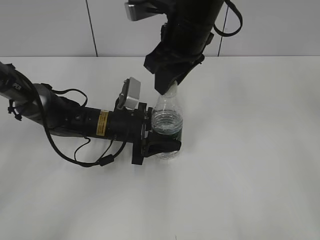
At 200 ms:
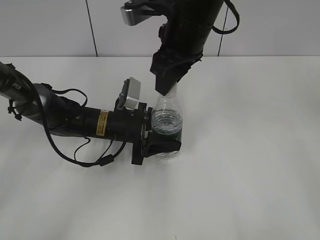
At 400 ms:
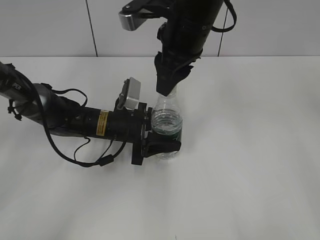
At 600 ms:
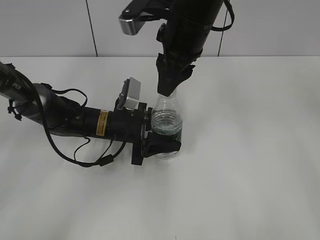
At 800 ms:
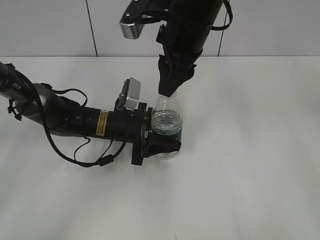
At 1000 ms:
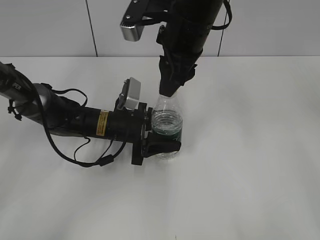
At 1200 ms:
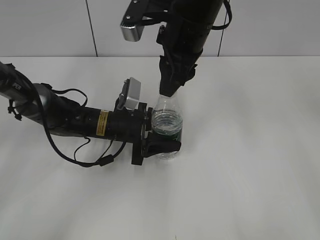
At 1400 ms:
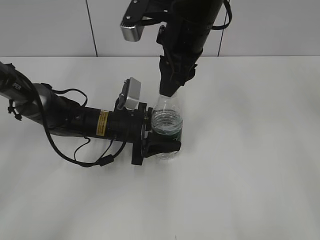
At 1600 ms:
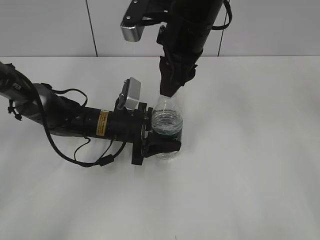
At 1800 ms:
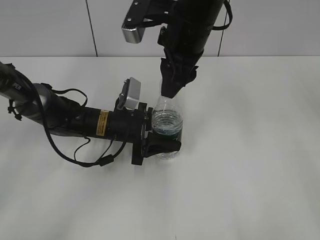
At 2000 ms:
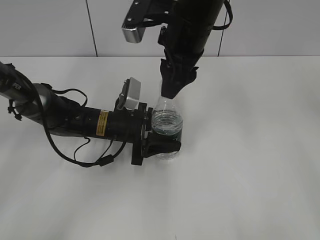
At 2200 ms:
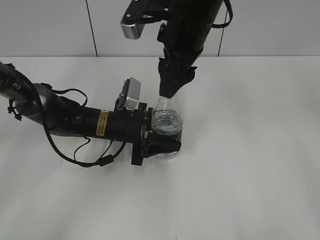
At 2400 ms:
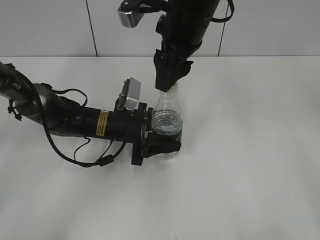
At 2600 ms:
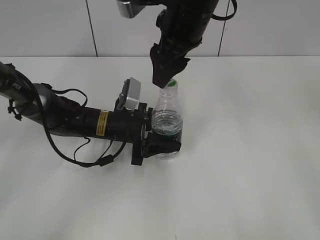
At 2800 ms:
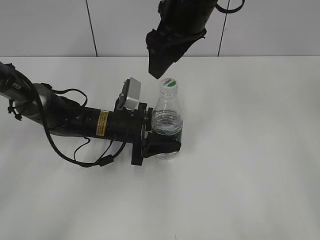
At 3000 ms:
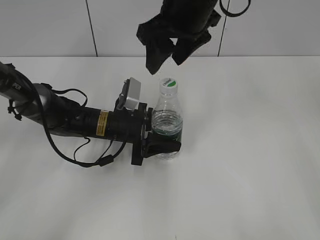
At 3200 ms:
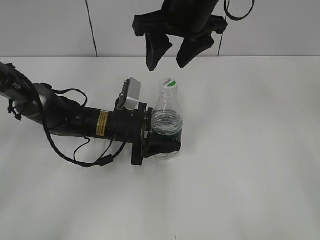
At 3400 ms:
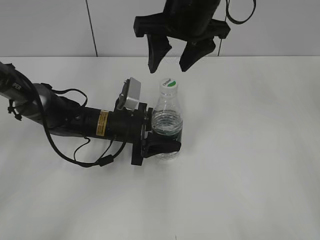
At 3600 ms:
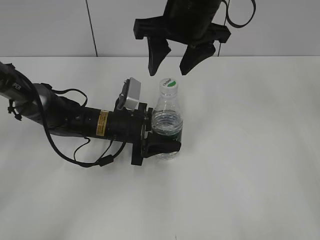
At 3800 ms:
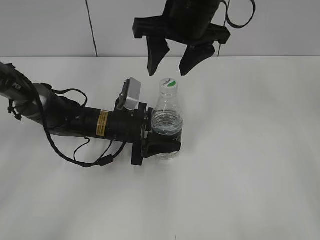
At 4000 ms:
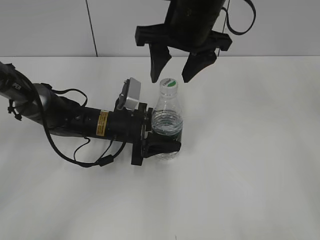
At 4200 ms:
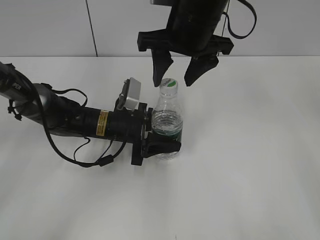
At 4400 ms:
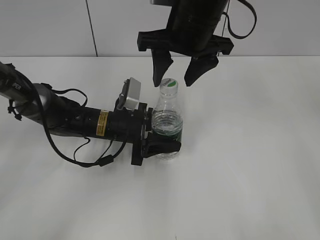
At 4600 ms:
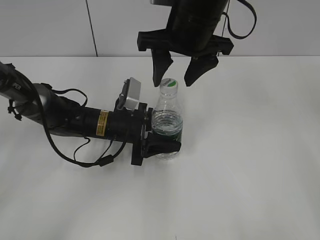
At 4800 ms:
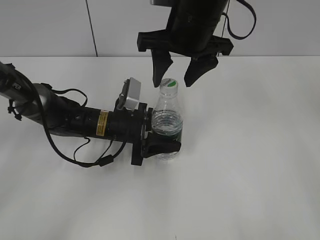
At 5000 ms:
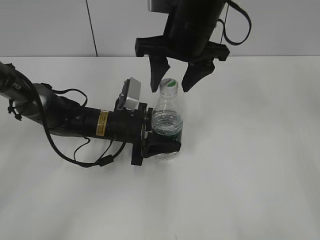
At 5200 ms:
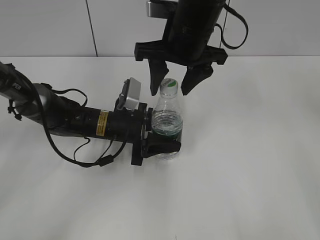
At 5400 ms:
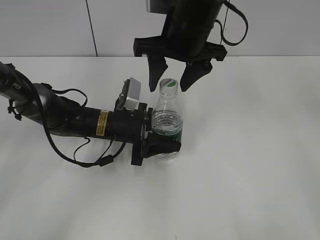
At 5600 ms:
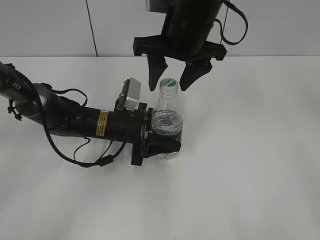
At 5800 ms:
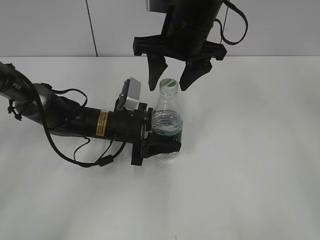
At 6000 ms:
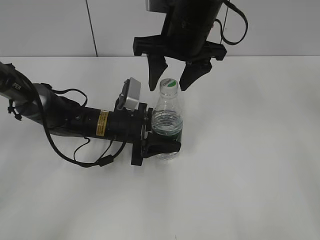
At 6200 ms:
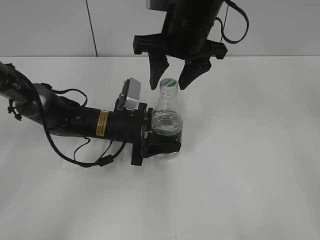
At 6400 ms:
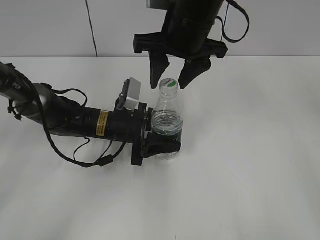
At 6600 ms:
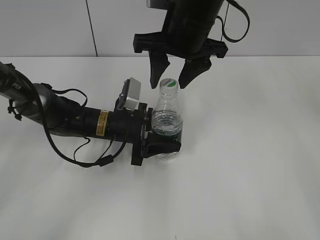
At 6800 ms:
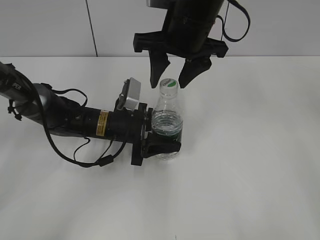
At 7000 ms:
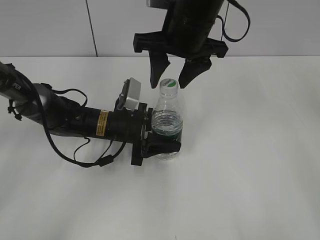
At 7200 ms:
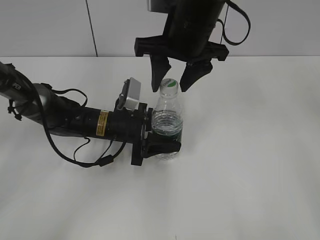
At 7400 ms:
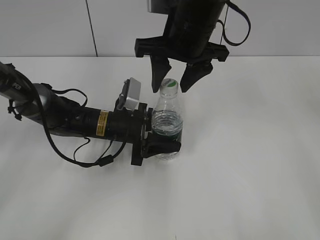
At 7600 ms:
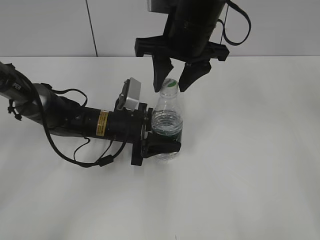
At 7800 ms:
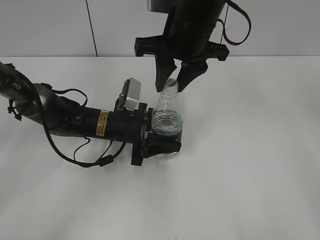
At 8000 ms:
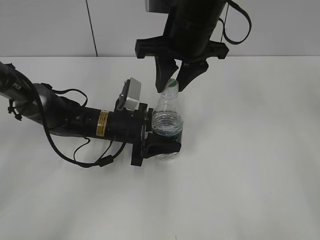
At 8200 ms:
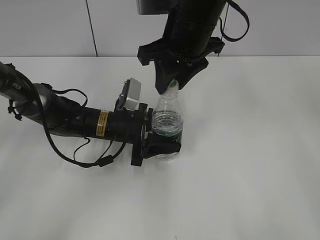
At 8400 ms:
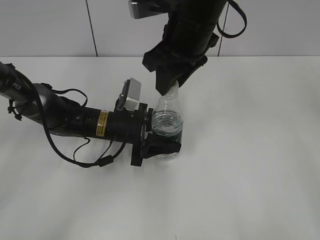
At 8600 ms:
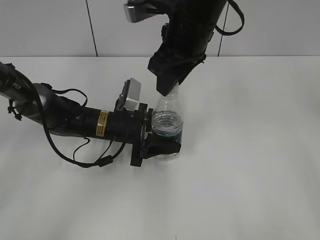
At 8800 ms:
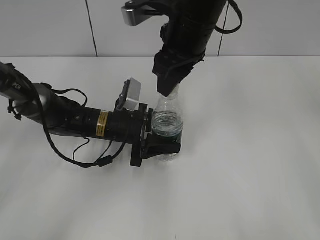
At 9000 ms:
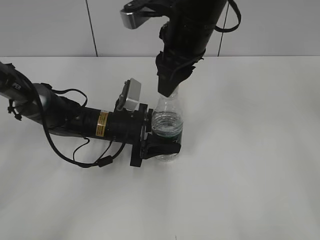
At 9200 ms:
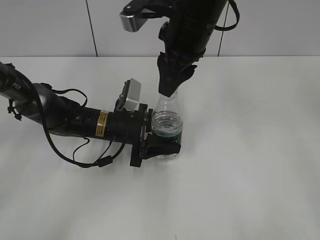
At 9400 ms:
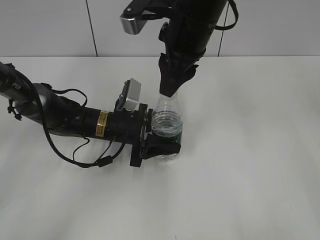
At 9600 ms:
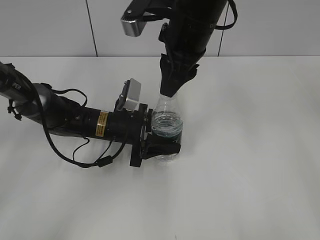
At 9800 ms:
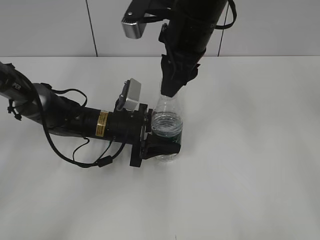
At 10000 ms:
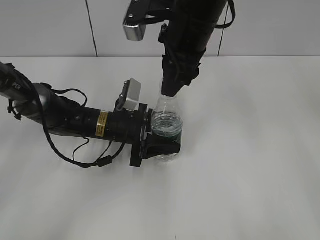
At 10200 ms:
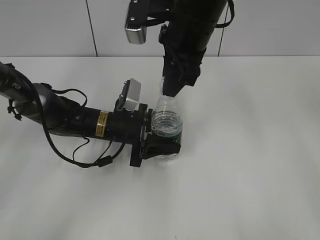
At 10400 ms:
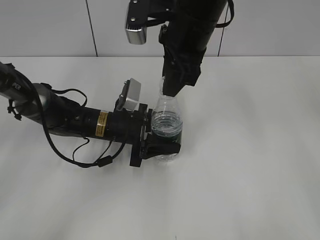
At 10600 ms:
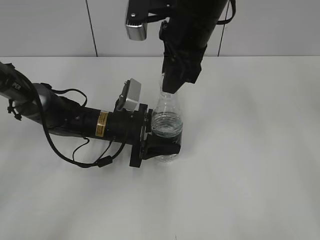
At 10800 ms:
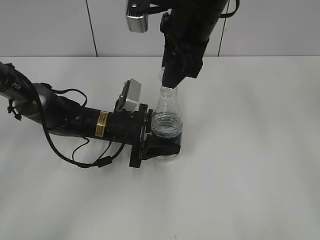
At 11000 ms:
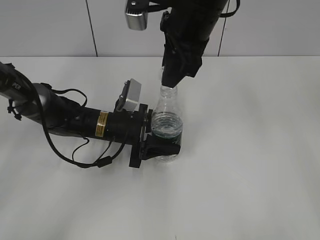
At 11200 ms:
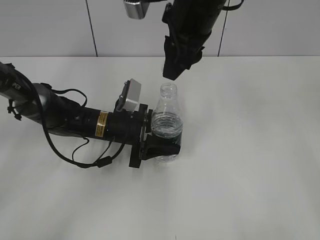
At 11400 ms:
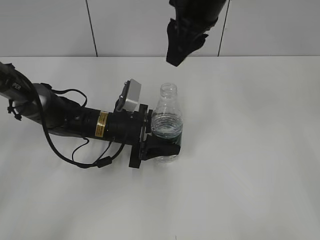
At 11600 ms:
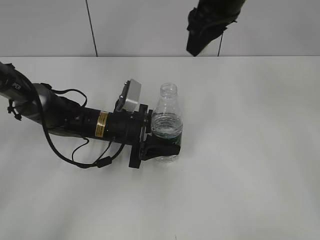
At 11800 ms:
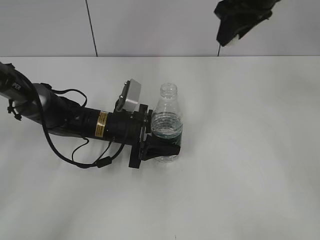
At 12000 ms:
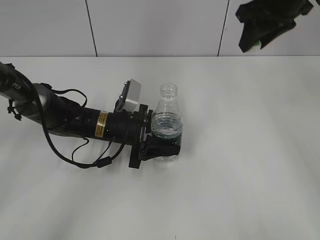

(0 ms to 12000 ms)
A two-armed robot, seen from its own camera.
Step, 0 ms - 11000 ms: Unscrew the bottle cap with the right gripper while holding the bottle with the left gripper.
1600 ms - 3000 ms: The right gripper opens.
4400 ms - 6000 ms: There are only small adjustments of the grippers.
6000 ms - 7600 ms: The right gripper closes its fingers.
7600 ms - 9000 ms: The right gripper closes up.
10400 ms - 12000 ms: The right gripper shifts approximately 15 cm to the right and forward.

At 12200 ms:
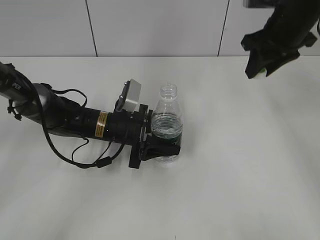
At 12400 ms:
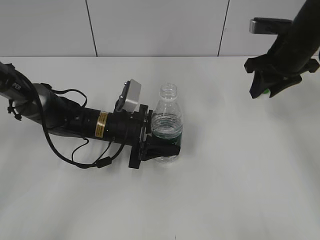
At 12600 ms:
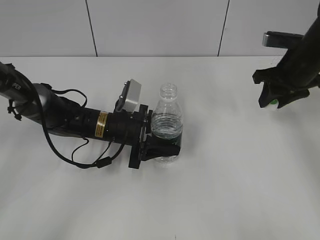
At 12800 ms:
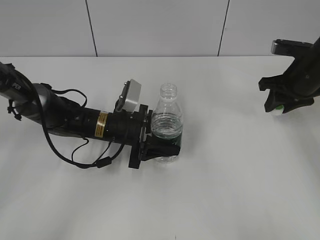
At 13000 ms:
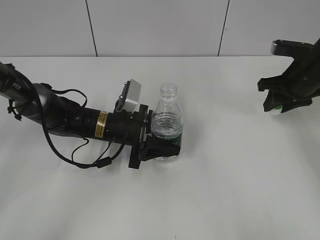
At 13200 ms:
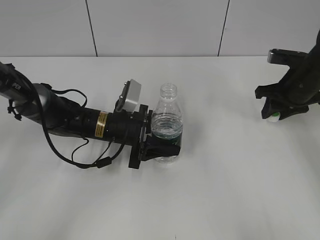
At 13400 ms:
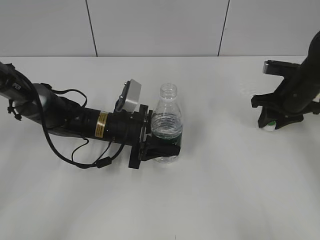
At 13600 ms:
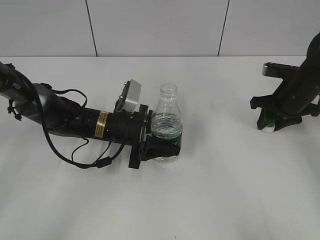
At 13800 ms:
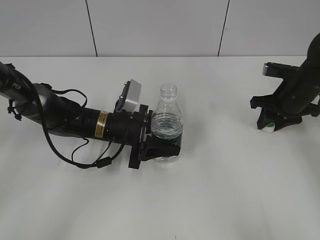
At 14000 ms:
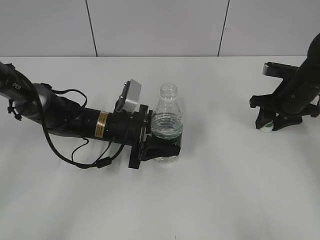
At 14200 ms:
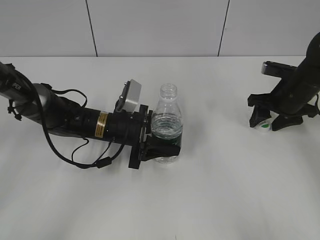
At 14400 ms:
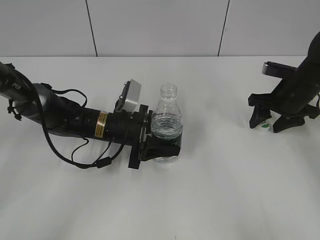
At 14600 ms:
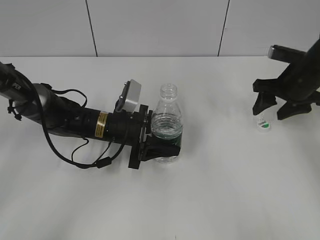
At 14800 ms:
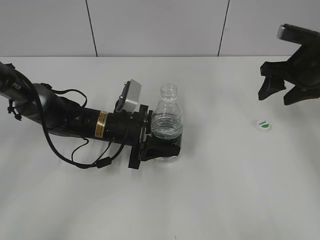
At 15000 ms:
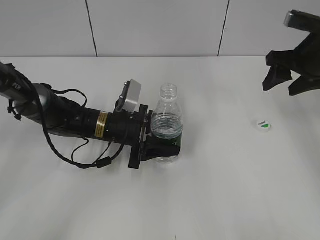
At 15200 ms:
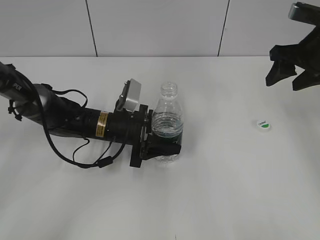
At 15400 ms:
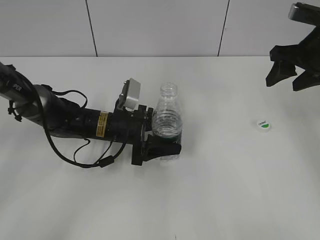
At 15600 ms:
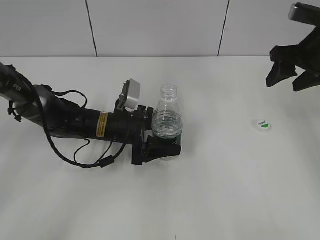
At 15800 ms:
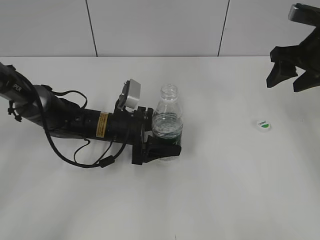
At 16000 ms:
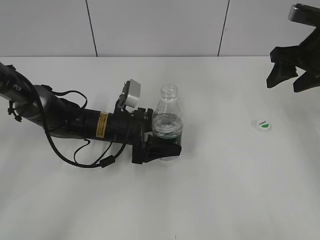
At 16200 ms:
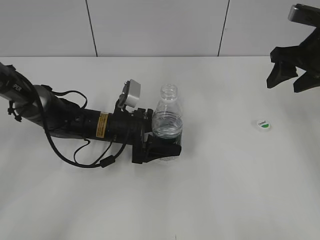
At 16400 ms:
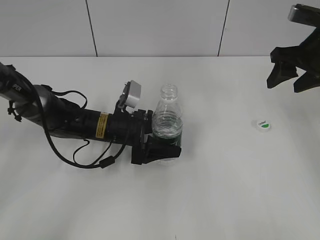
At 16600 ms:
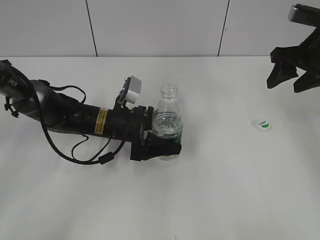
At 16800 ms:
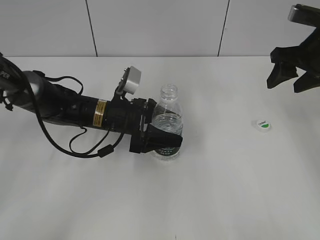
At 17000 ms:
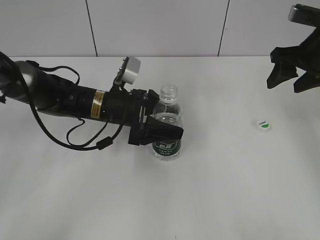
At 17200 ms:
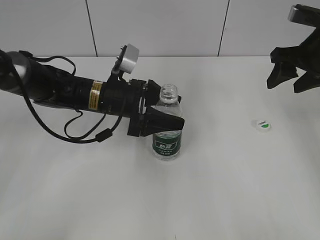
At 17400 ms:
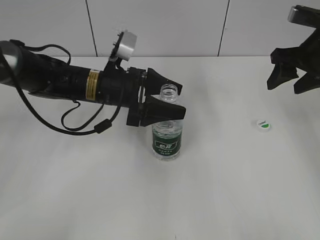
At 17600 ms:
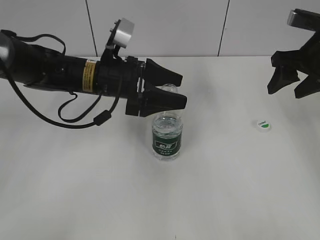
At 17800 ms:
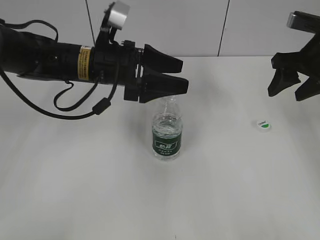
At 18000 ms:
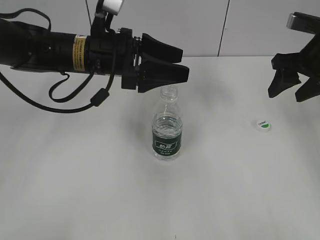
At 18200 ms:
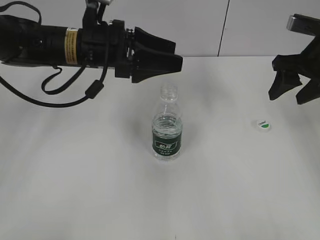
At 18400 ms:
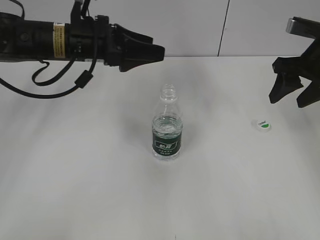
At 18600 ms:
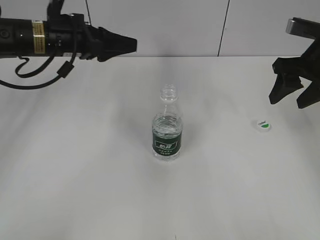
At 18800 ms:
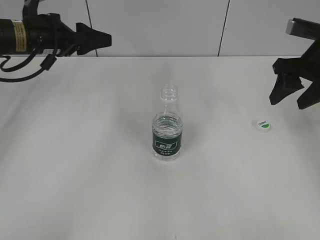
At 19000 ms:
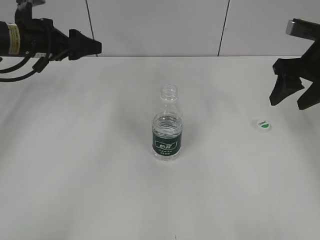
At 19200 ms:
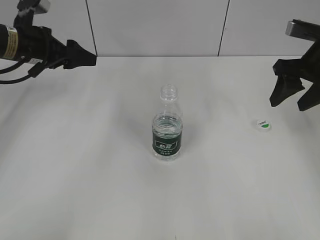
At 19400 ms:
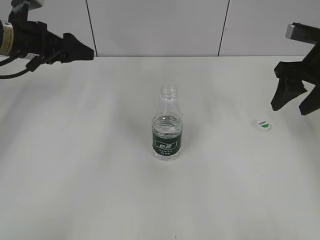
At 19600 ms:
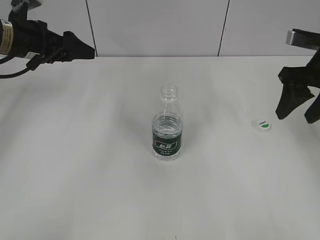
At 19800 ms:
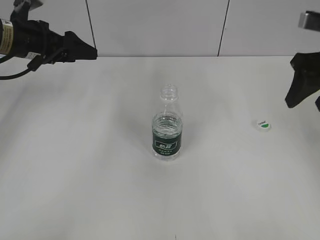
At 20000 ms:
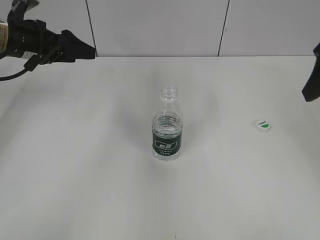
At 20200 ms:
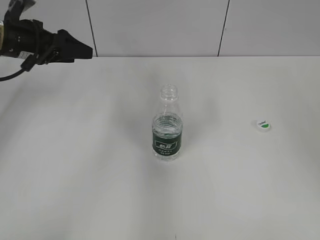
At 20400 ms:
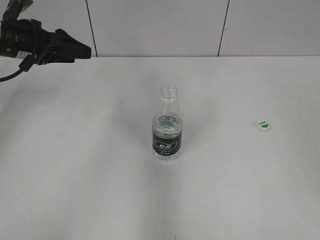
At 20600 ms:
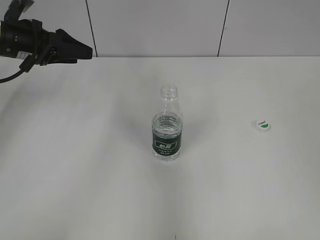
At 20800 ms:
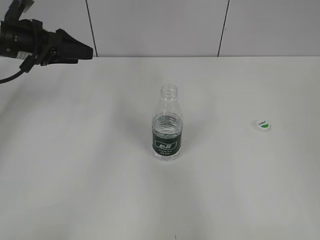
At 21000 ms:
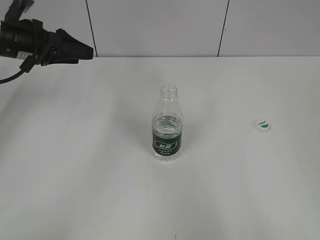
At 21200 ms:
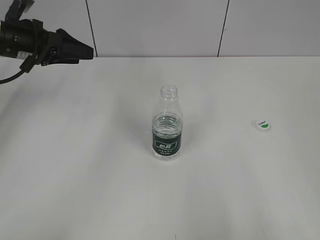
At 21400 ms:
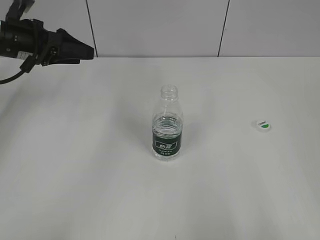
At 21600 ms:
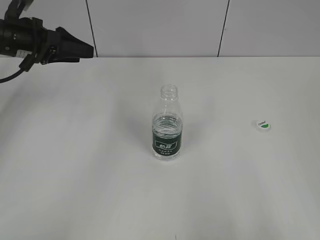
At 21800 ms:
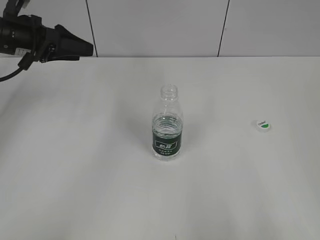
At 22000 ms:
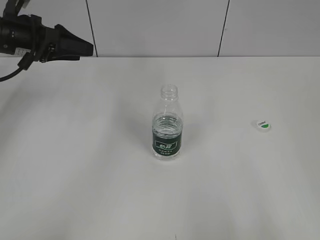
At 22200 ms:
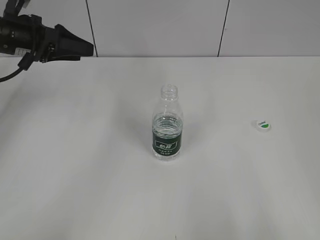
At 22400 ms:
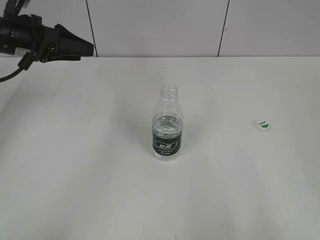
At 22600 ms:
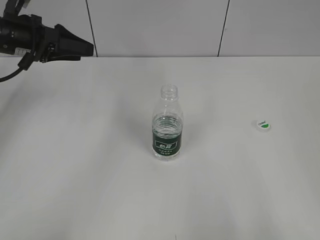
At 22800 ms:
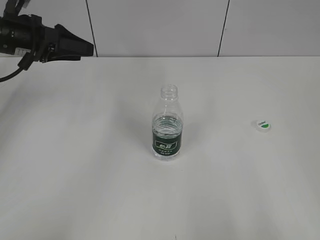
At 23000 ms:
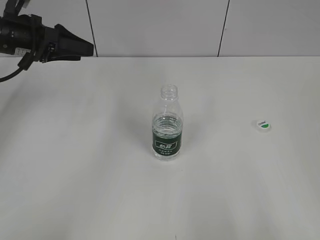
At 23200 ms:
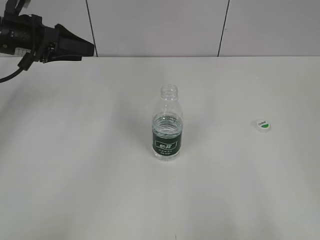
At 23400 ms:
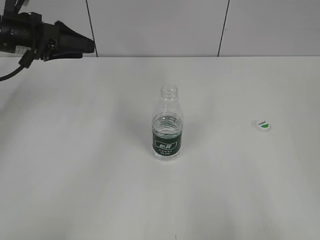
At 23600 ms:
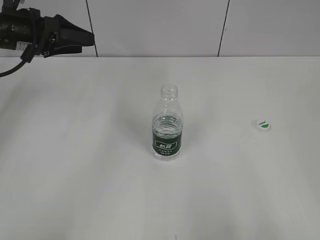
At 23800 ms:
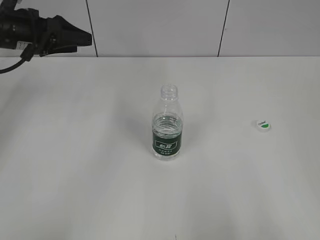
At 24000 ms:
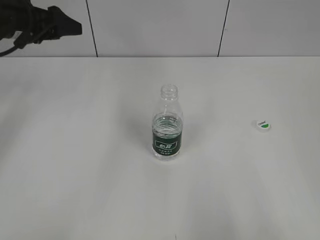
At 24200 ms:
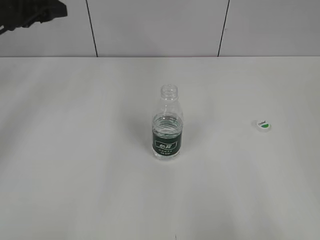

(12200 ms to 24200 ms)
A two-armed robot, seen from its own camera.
Step, 12200 ms - 14400 ms: Place the bottle cap on the table with the right gripper.
Step, 14600 ms - 17000 ms: Place the bottle on the table with the left gripper.
12200 ms - 13800 ms: The right gripper goes approximately 15 cm downward and to the right.
13800 ms - 15200 ms: The right gripper is displaced upward by roughly 10 cm, and opens.
15200 ms - 16600 ms: The left gripper opens its fingers.
16600 ms - 18200 ms: The left gripper is displaced upward by approximately 15 cm.
18200 ms - 19800 ms: The left gripper shifts approximately 15 cm to the left and forward.
19800 ms - 21200 ms: The right gripper moves backward, roughly 35 cm. The left gripper closes up.
21200 ms - 22600 ms: Neither gripper changes place.
22600 ms - 24200 ms: The left gripper goes approximately 5 cm upward.
